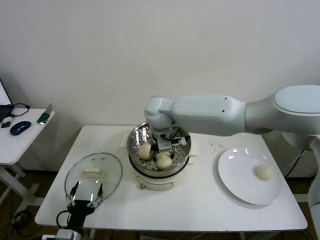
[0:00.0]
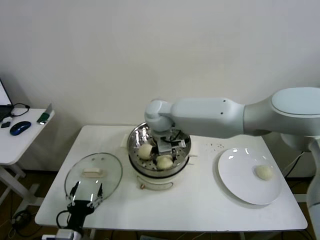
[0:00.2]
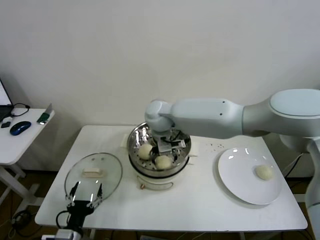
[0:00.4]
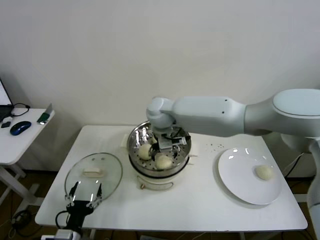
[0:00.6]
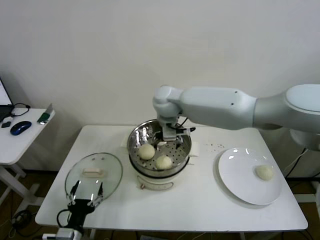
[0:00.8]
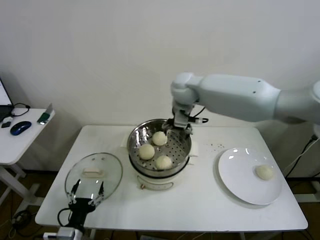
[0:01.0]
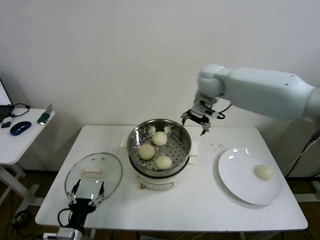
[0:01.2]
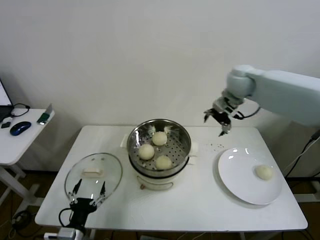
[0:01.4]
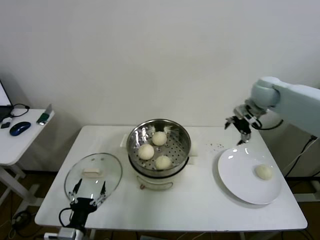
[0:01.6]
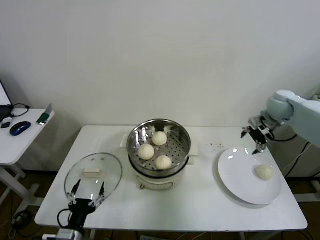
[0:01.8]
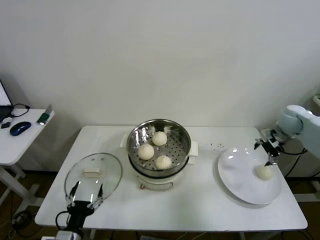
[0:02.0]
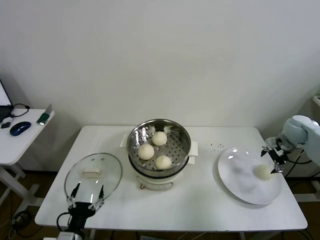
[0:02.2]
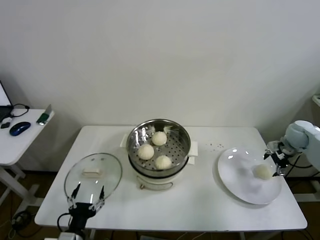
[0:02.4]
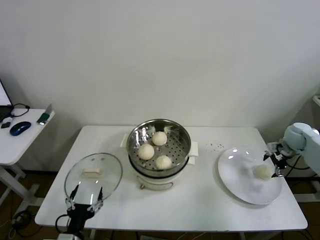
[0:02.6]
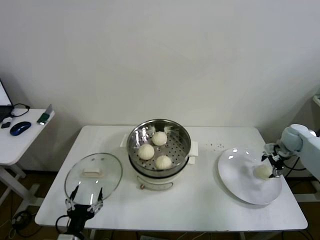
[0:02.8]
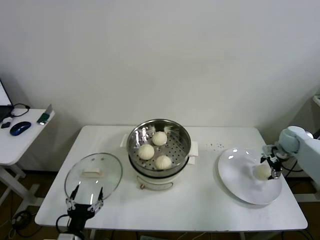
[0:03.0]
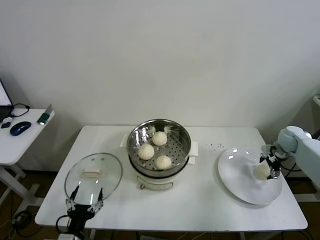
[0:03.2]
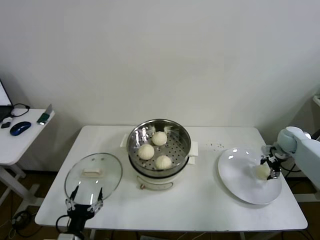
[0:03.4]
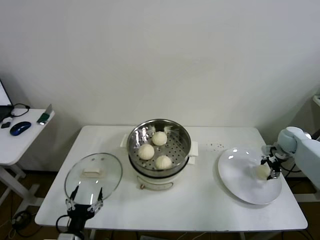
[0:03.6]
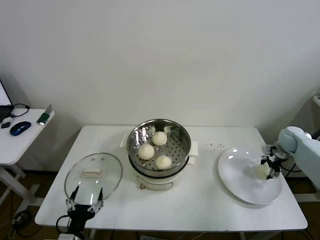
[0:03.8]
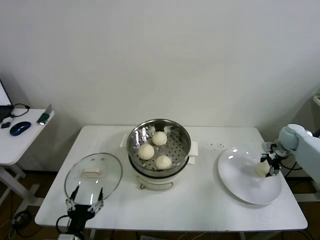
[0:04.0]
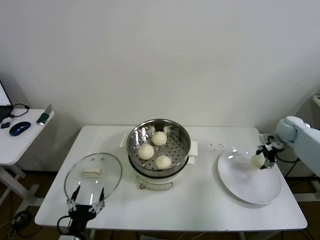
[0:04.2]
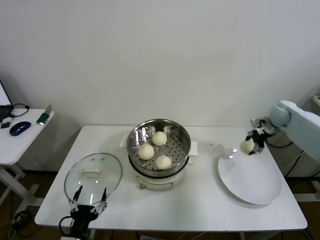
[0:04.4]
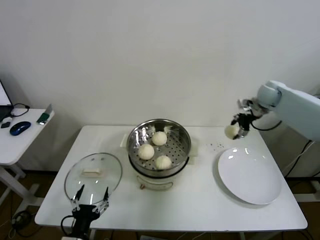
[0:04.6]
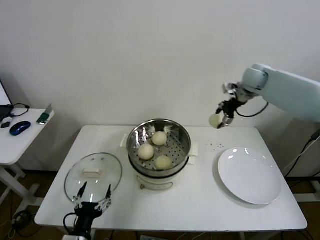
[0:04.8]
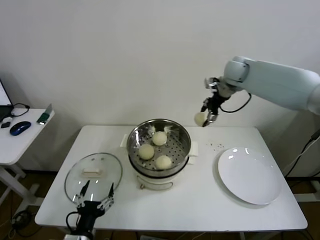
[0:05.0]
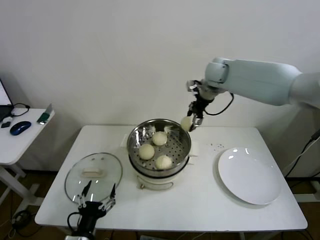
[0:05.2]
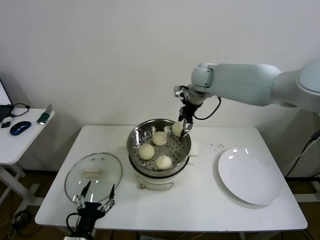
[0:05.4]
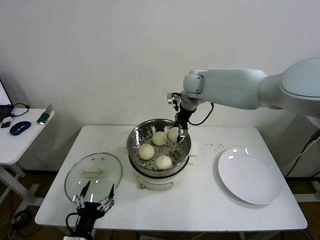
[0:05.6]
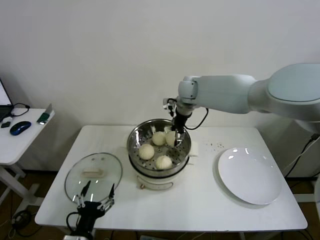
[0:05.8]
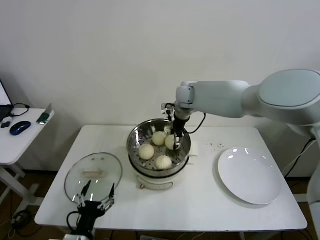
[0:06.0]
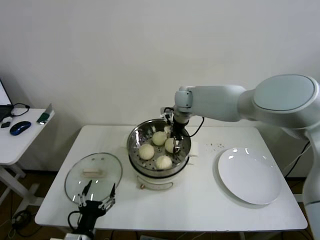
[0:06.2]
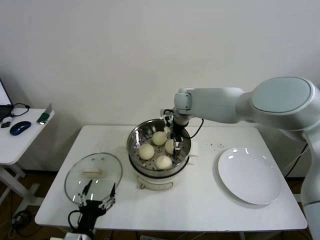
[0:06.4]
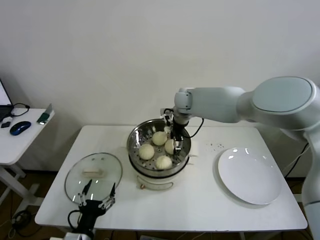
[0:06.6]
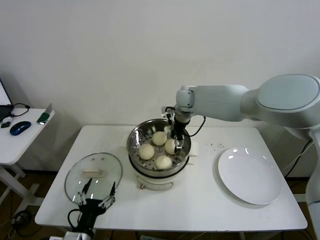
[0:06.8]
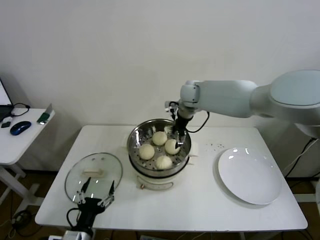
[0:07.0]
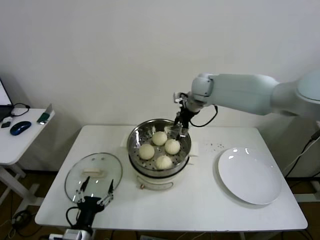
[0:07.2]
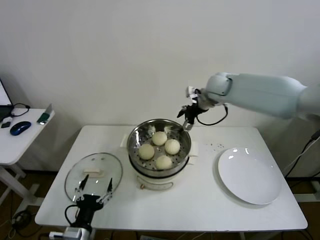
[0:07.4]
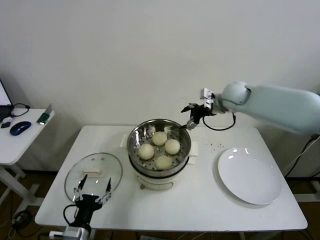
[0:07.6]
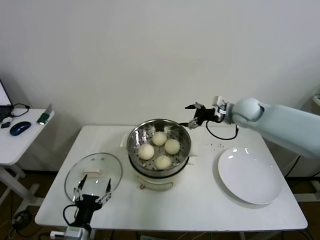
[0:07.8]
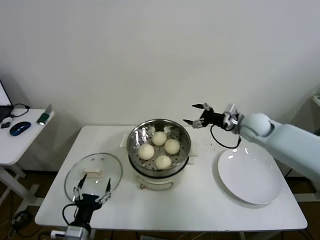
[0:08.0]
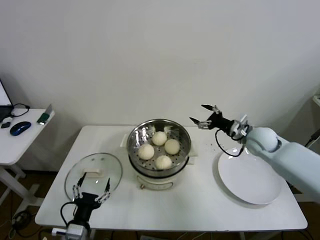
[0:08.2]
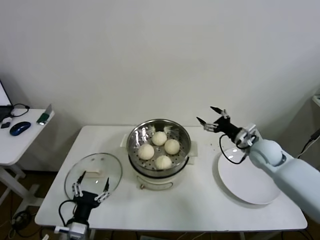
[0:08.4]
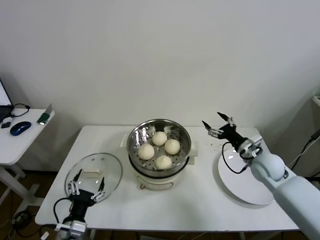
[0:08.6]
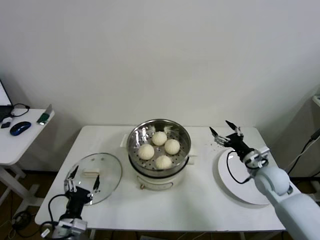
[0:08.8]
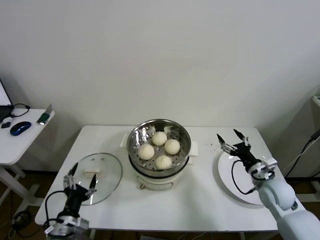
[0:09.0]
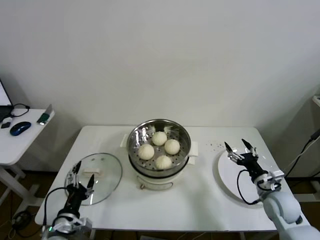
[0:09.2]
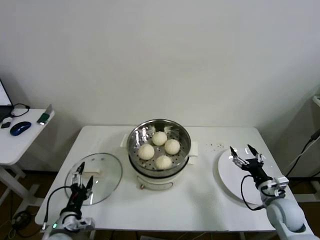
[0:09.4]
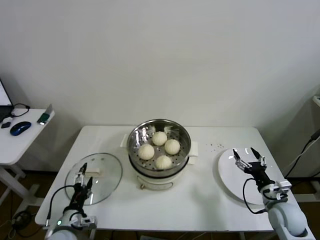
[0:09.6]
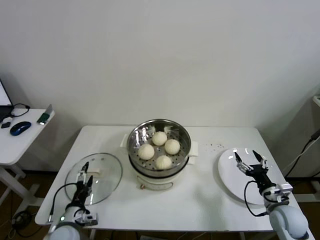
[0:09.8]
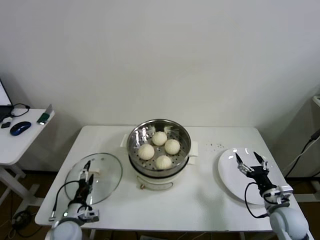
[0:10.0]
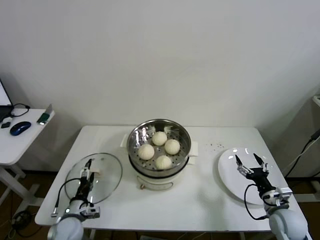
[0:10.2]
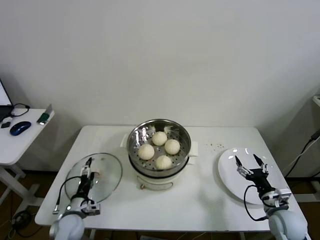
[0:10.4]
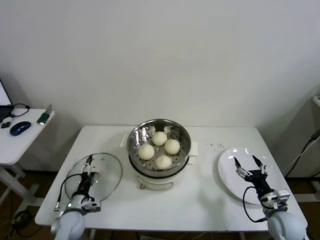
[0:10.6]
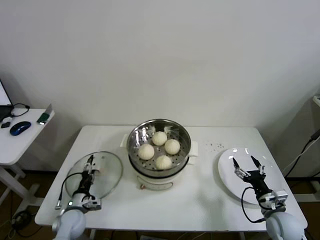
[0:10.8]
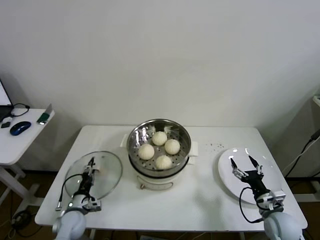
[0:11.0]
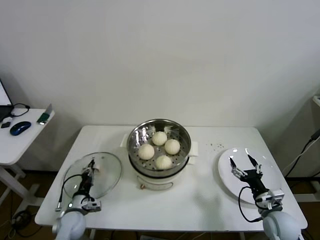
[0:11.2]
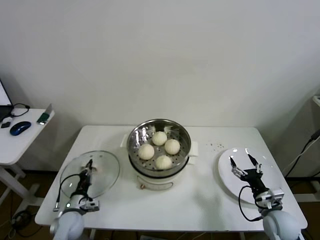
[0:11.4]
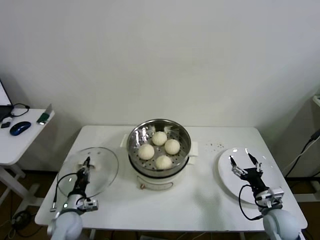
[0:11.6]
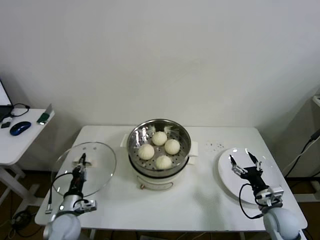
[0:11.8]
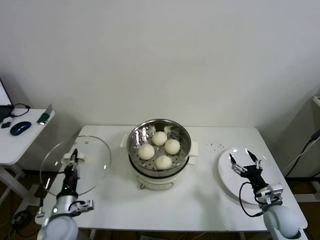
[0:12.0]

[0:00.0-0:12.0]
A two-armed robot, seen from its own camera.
Step, 0:00.8 to 0:03.6: Grasp the baozi in the plate with right gripper.
Step, 0:03.8 to 0:06.8: Place the baozi on the steamer with right gripper.
Step, 0:07.0 to 0:11.2: Grasp the pot lid with left gripper.
0:00.0 to 0:01.6: The right gripper goes some 35 cm to the right, and opens.
0:01.6 to 0:03.0: The right gripper goes roughly 25 cm downward and to the right.
0:03.0 to 0:04.4: The right gripper moves upward, forward and to the left, some 10 cm, and closes its fingers.
0:04.4 to 0:06.0: The right gripper travels to the left by some 35 cm.
0:06.0 to 0:07.6: The right gripper is displaced to the right by some 15 cm, and opens.
0:07.6 to 0:09.0: The right gripper heads backward, downward and to the right, covering roughly 35 cm.
0:09.0 to 0:10.4: The left gripper heads downward and forward, covering about 15 cm. The right gripper heads backward and downward, covering approximately 10 cm.
0:10.4 to 0:12.0: The left gripper heads upward, covering some 5 cm, and closes.

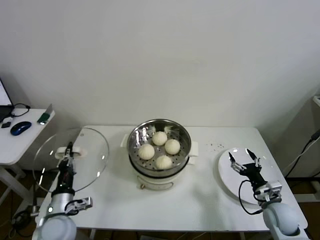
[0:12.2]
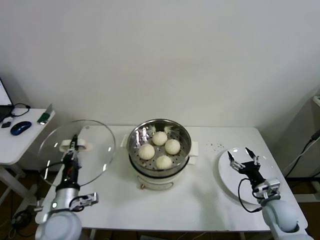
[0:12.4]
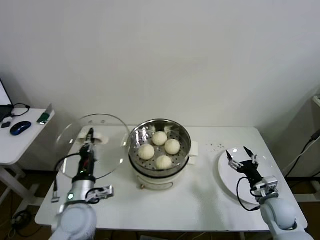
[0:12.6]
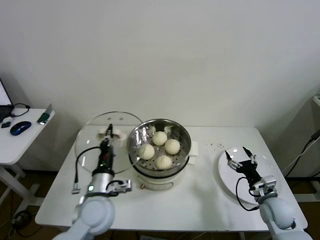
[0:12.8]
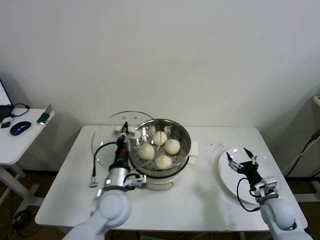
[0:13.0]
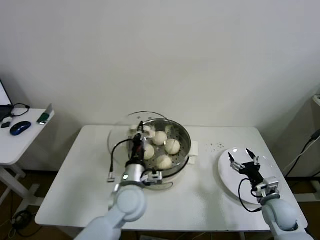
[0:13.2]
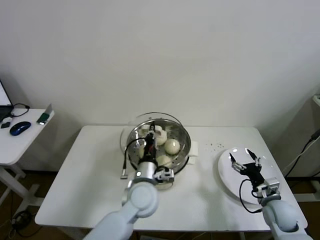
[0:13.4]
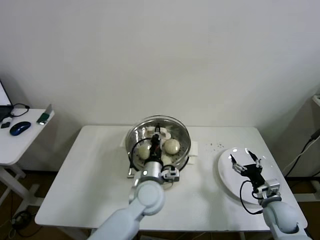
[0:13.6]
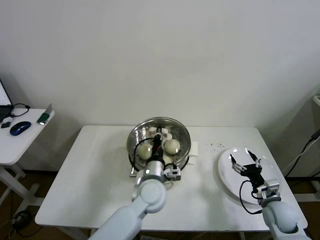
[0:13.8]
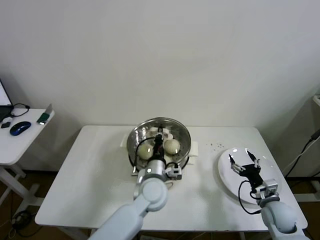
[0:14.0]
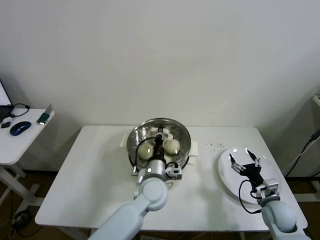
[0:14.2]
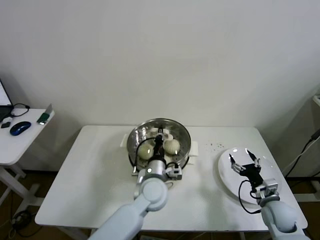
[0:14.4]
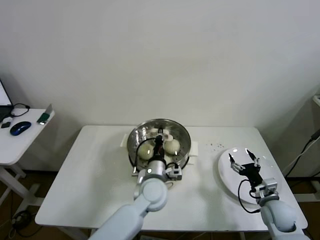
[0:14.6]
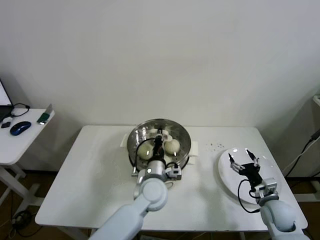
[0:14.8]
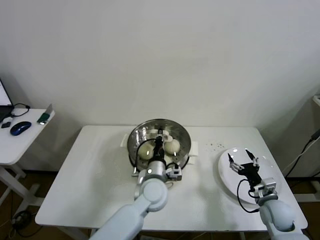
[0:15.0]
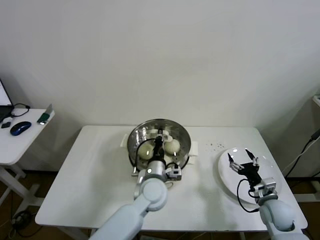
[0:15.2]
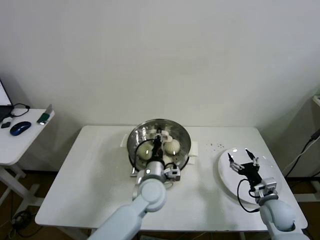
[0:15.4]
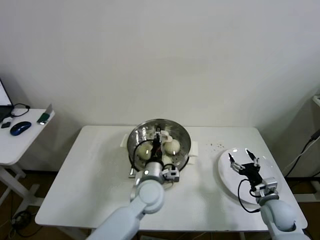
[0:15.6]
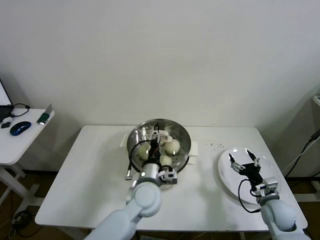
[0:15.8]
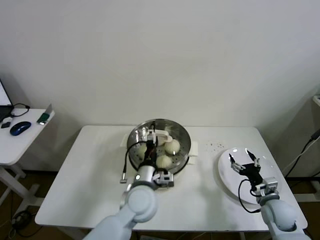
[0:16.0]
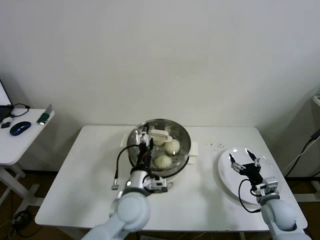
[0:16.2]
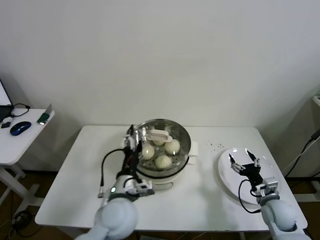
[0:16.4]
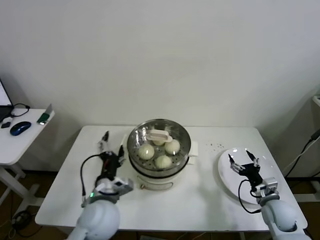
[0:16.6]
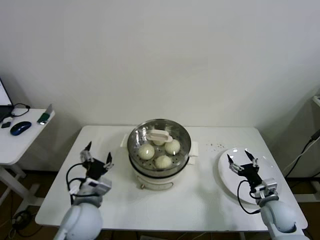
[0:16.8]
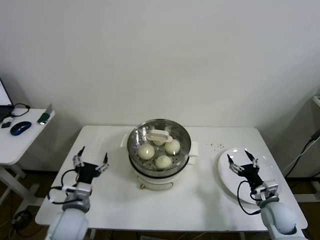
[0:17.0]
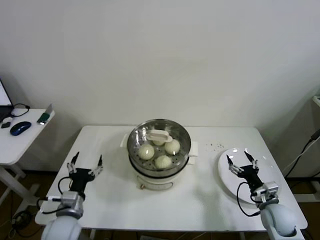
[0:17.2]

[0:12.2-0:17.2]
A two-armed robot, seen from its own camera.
Step, 0:12.2 to 0:16.2: Place the pot lid on the steamer with left gripper.
0:12.2 to 0:13.8: The left gripper shifts about 25 cm to the right.
0:13.8 to 0:15.6: The grippers stay close to where they were, moving slightly.
0:15.6 to 0:17.2: The left gripper travels to the left by some 25 cm, and opens up.

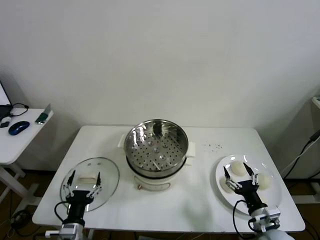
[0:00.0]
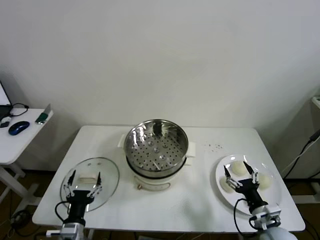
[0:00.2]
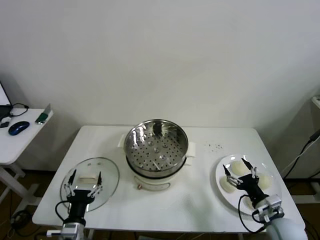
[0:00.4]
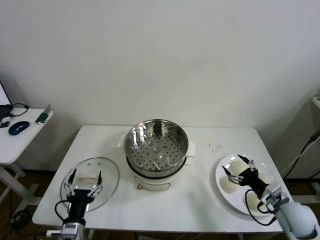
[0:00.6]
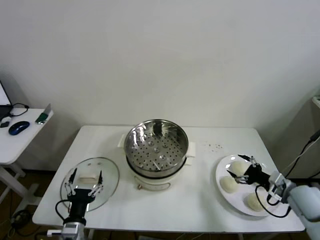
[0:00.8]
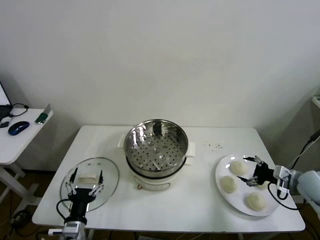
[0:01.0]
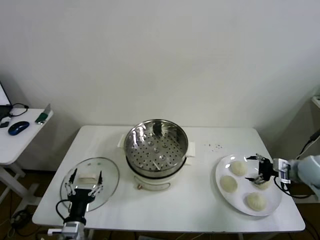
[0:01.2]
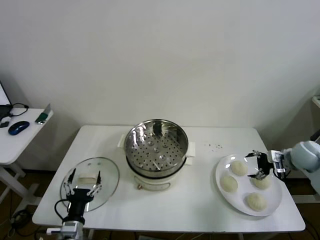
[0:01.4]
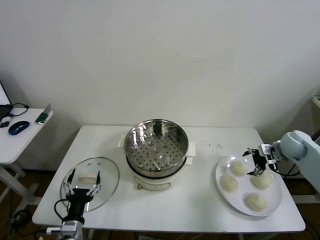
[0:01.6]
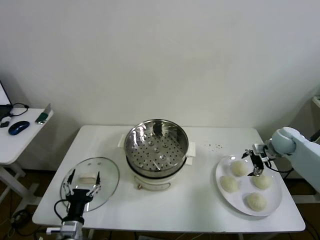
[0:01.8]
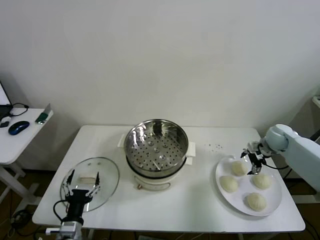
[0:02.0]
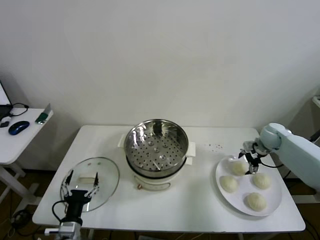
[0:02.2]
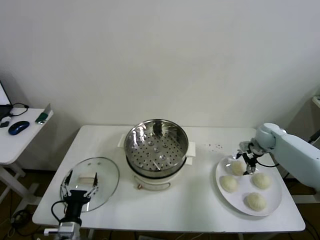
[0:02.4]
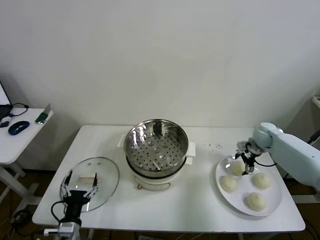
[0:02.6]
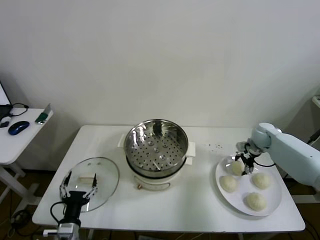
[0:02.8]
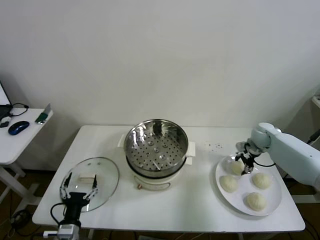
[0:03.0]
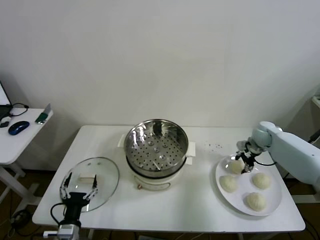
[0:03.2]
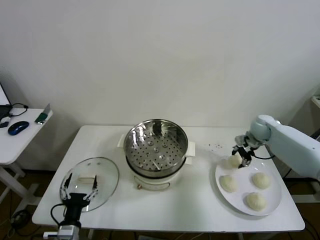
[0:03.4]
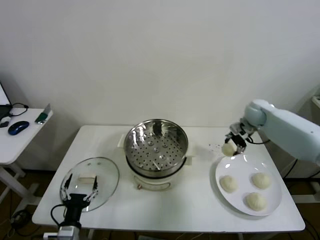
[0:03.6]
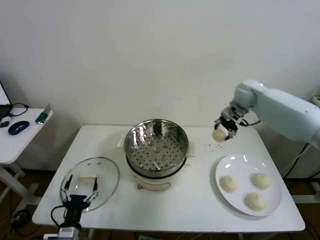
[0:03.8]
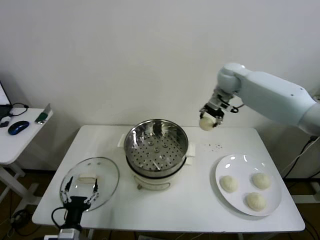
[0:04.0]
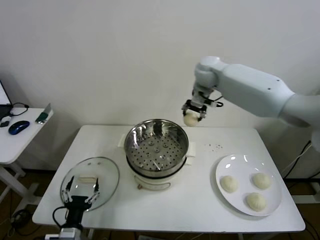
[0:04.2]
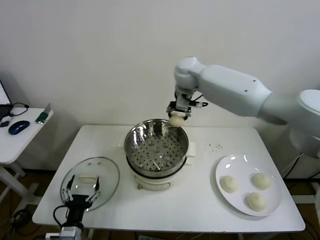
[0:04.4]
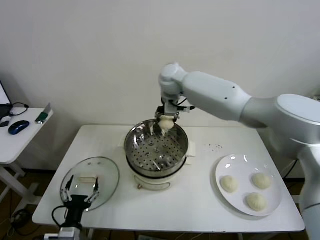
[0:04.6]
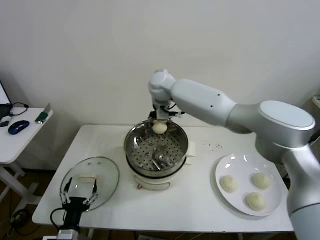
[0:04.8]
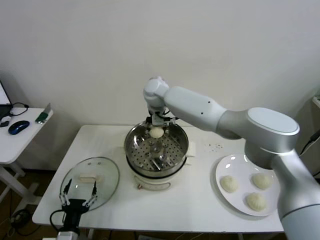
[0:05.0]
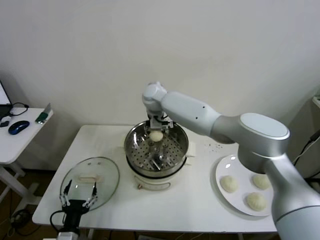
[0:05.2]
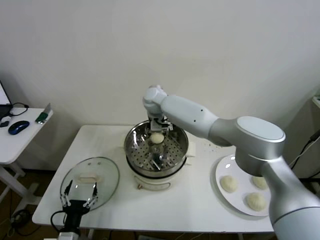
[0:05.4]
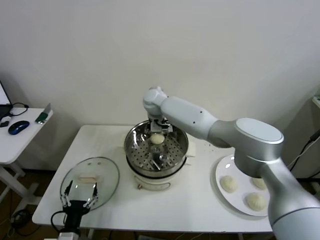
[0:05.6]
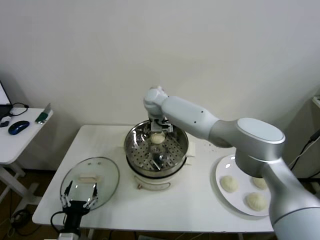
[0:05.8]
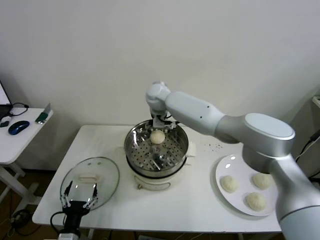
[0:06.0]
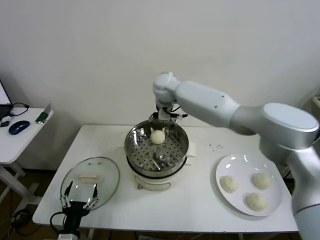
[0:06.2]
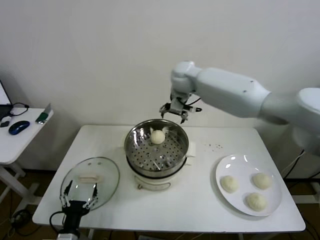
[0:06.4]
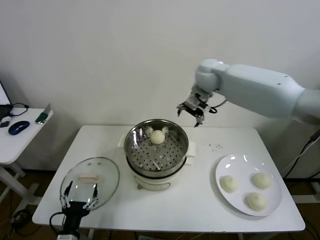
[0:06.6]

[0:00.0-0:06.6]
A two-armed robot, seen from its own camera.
Step, 0:00.0 to 0:03.0: Grasp the baozi in the plate with right gripper.
Step, 0:03.2 to 0:05.8: Place the baozi on the steamer with right gripper.
0:01.6 to 0:03.2: The right gripper travels forward and to the left by approximately 10 cm, and closes.
0:03.2 to 0:05.0: The right gripper is displaced to the left by about 40 cm.
0:05.0 to 0:06.6: The right gripper moves to the right, roughly 25 cm, and opens.
